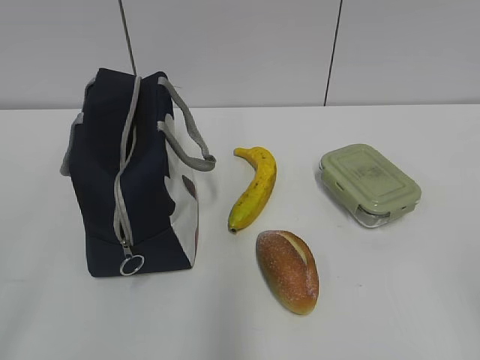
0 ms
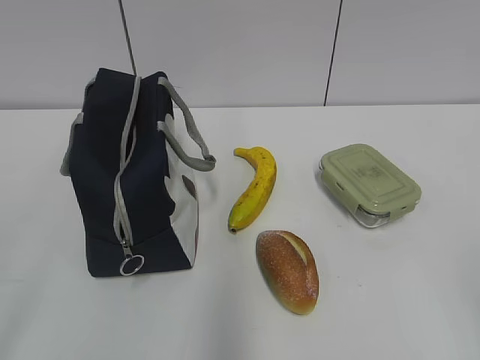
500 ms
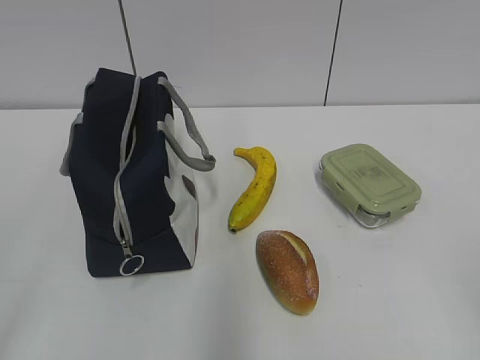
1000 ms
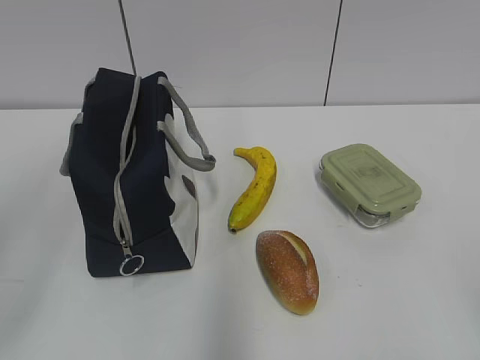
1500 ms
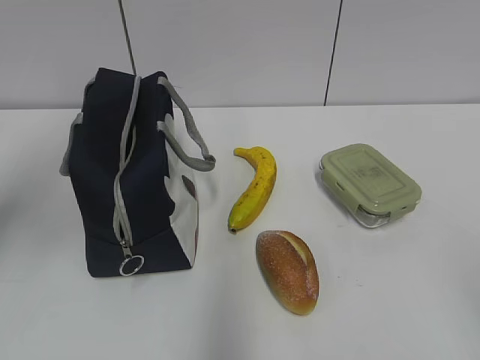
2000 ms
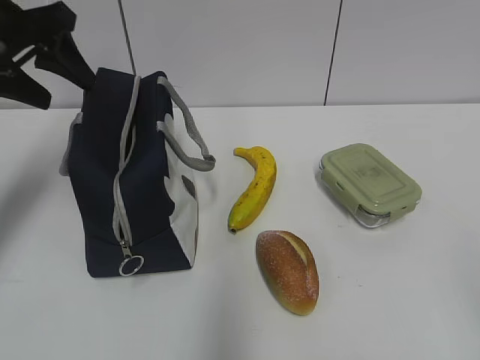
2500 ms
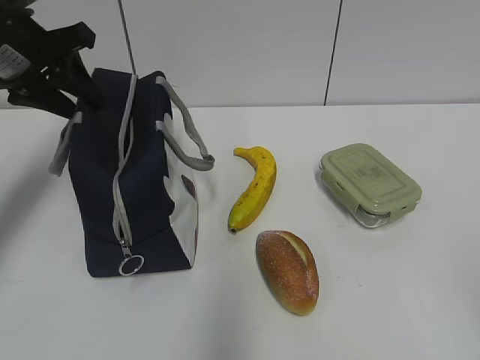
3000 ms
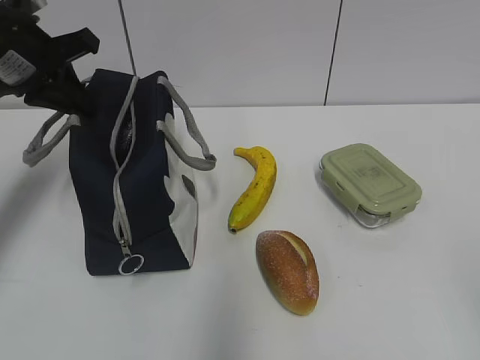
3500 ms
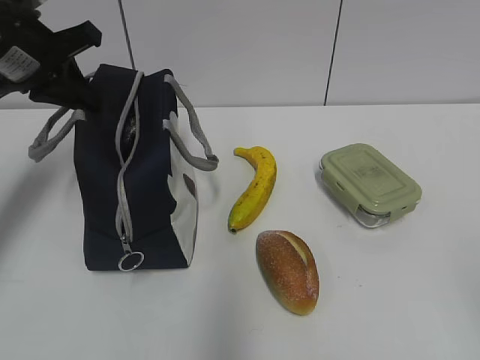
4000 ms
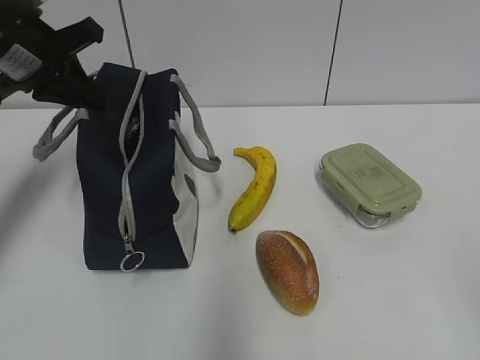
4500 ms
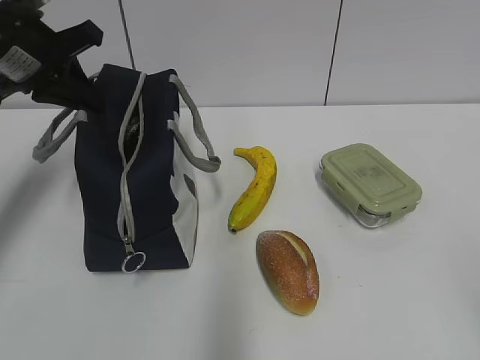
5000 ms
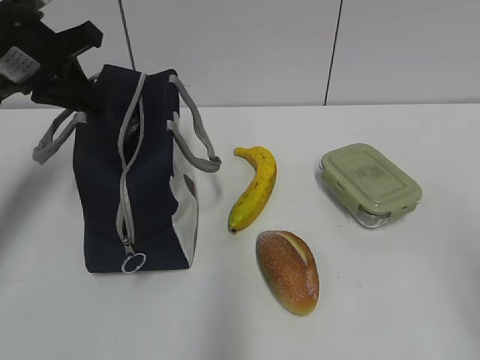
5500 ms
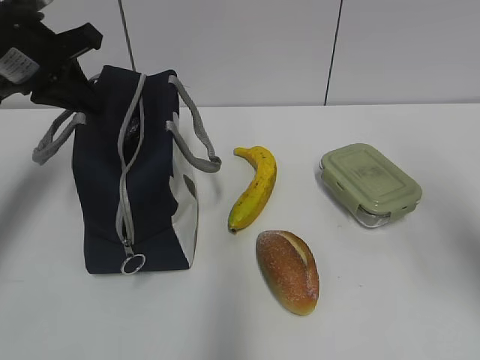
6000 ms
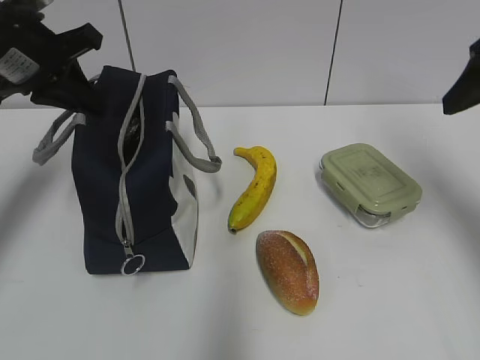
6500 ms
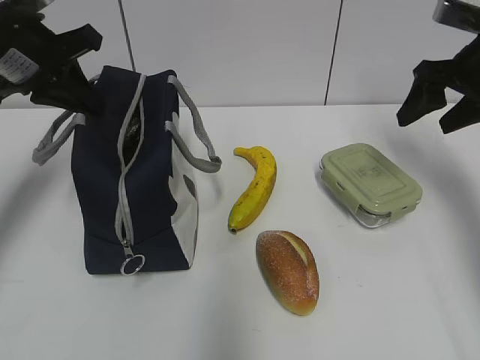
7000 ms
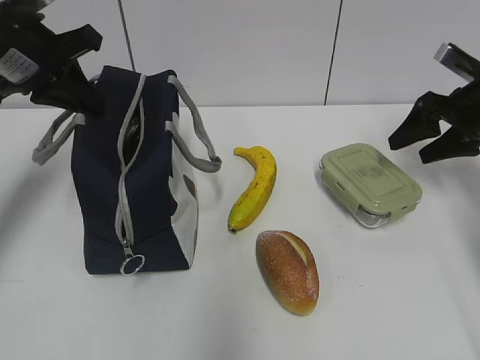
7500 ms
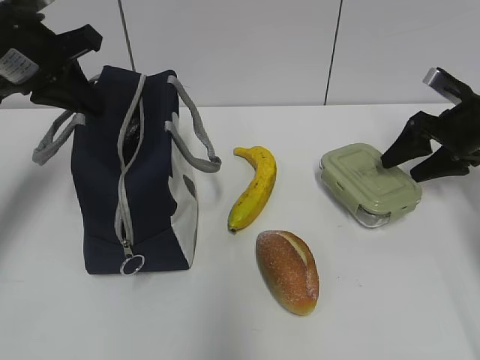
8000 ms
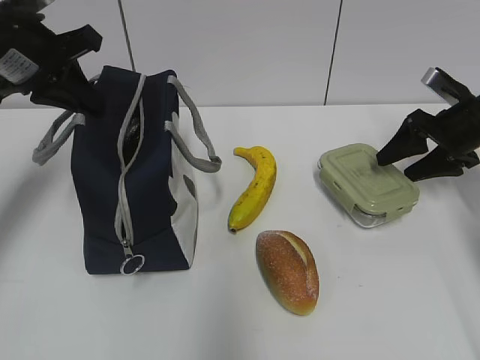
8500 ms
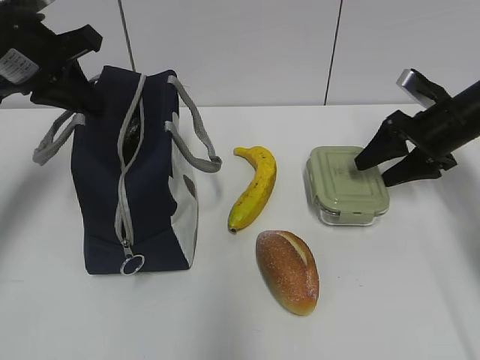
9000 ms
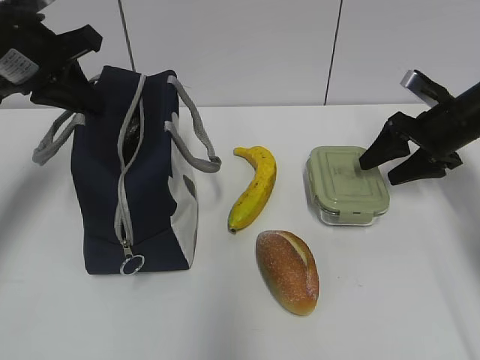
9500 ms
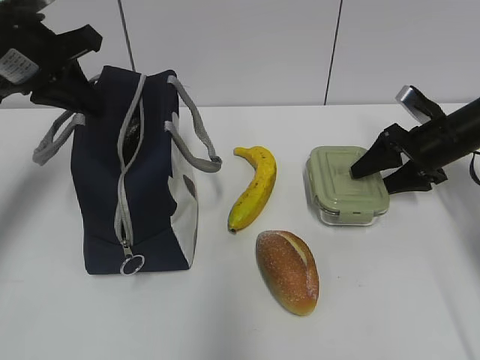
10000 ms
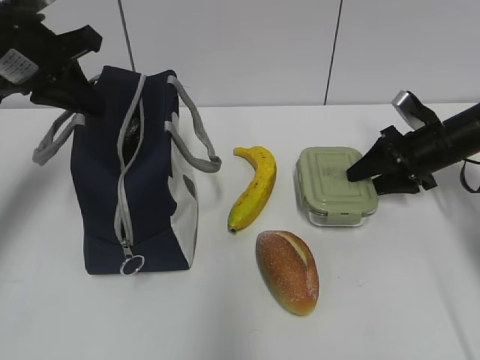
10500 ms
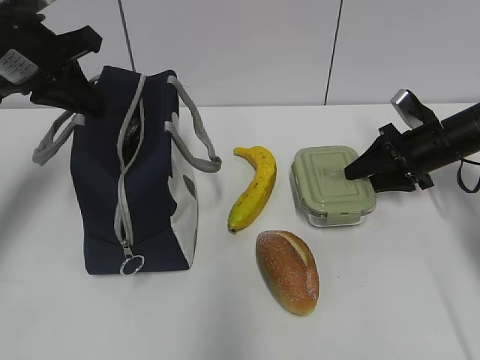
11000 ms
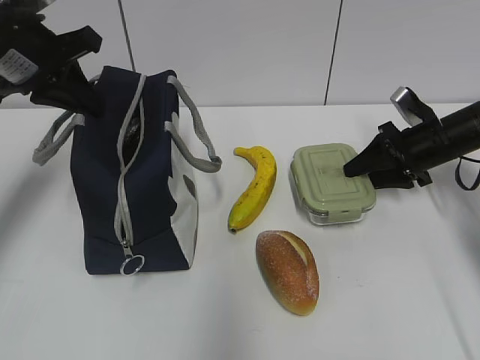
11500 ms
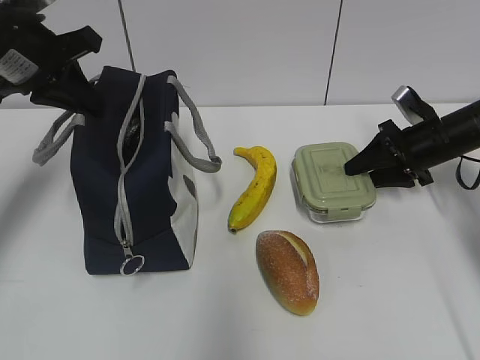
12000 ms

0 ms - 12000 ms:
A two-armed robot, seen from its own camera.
Step, 0 ms - 11500 ms: Grab the lunch box with your right hand.
2000 ms - 4000 ms: The left gripper is displaced forward and downward by about 20 cm, and closes up.
4000 ms - 6000 ms: The right gripper shifts some 20 cm forward.
6000 ms - 8000 ms: The right gripper goes roughly 25 cm forward and downward.
8000 ms - 10000 ms: There are only small adjustments of the grippers.
10000 ms - 12000 ms: The right gripper closes.

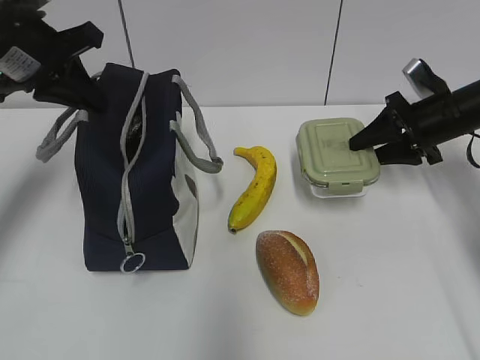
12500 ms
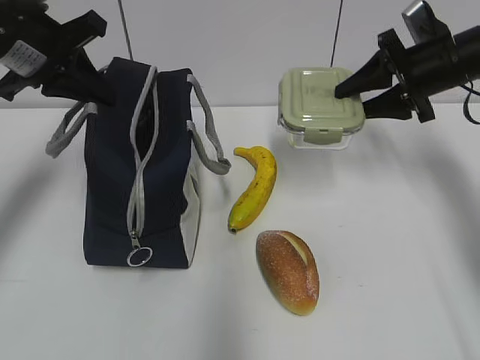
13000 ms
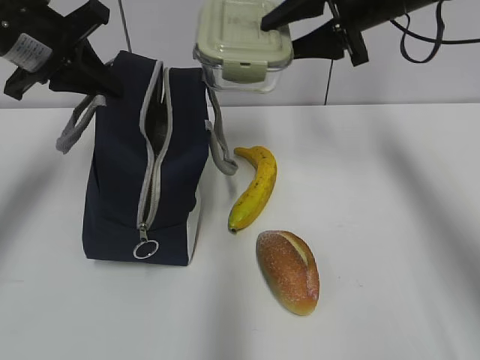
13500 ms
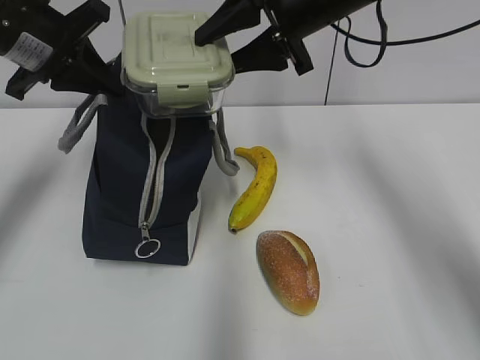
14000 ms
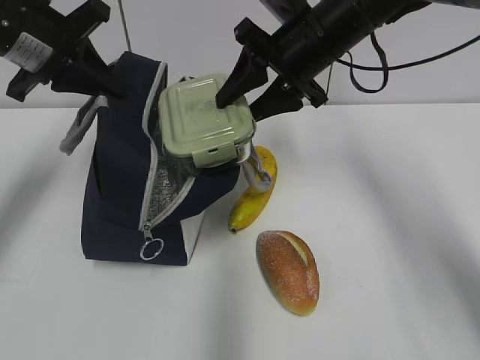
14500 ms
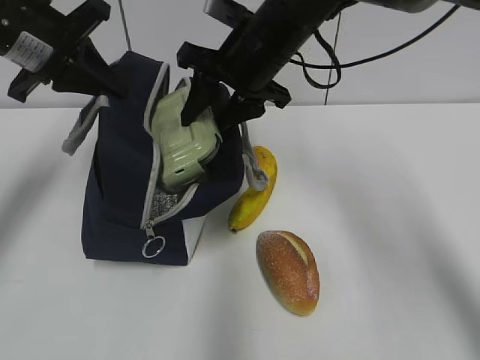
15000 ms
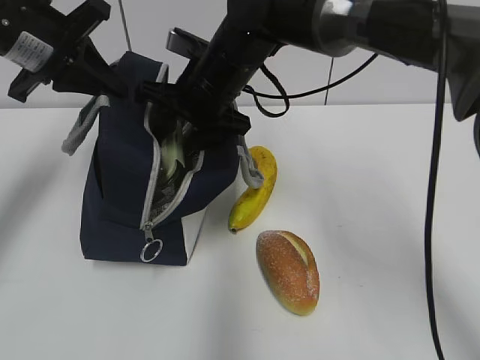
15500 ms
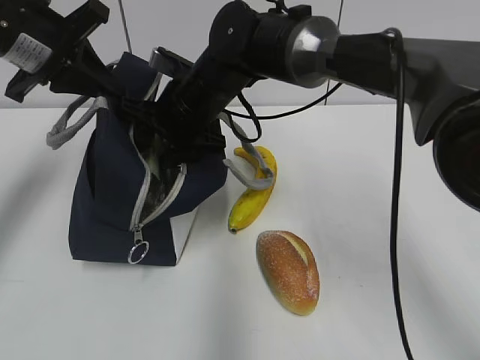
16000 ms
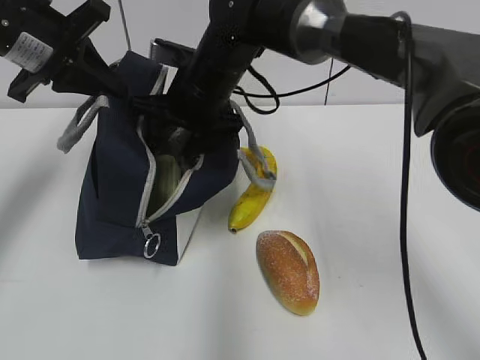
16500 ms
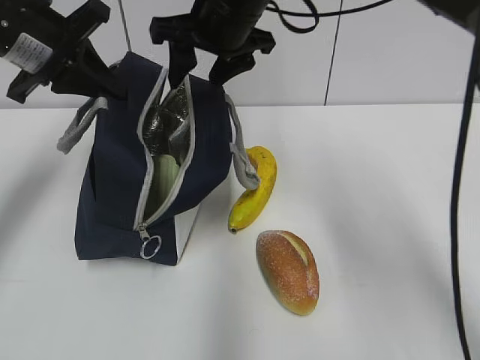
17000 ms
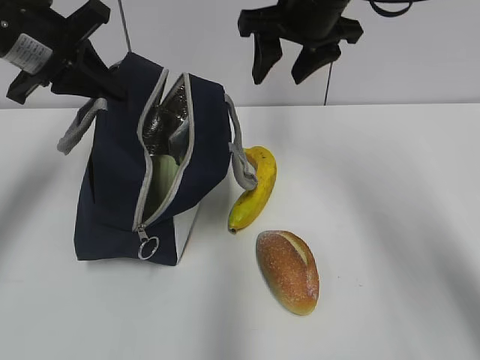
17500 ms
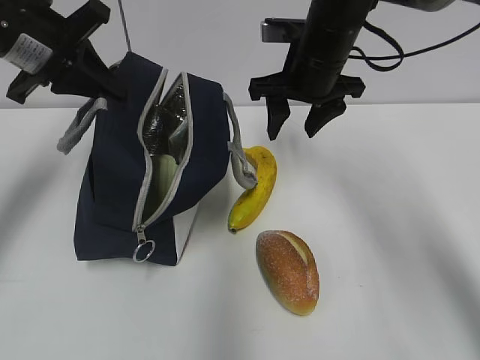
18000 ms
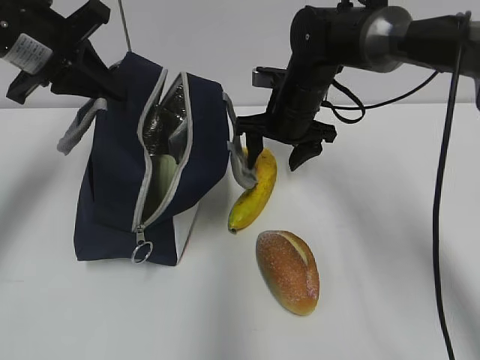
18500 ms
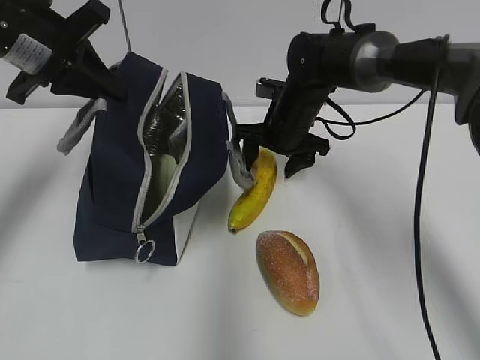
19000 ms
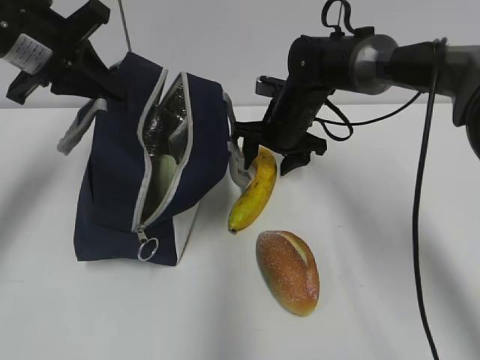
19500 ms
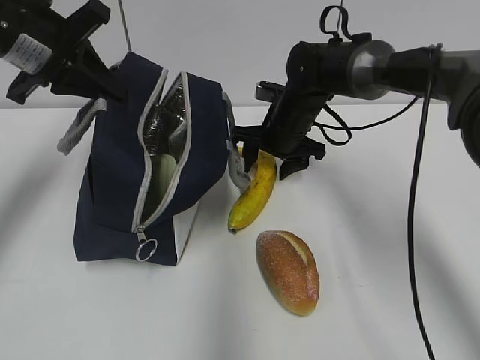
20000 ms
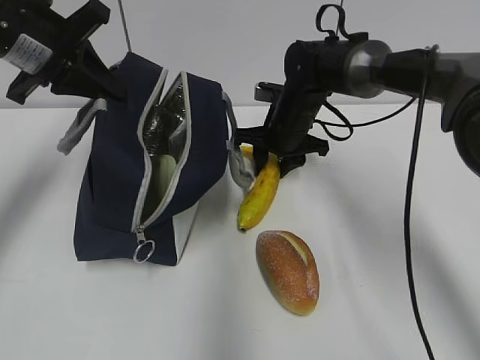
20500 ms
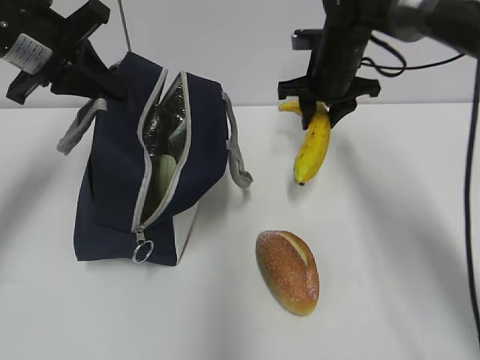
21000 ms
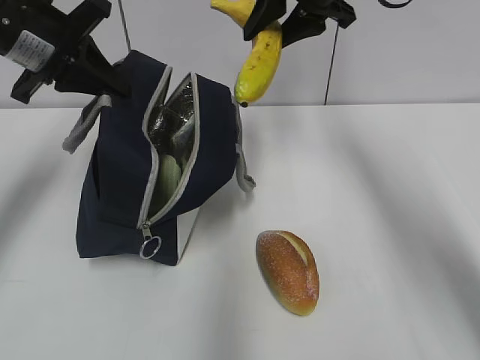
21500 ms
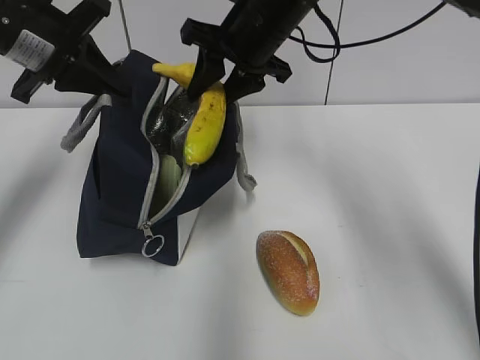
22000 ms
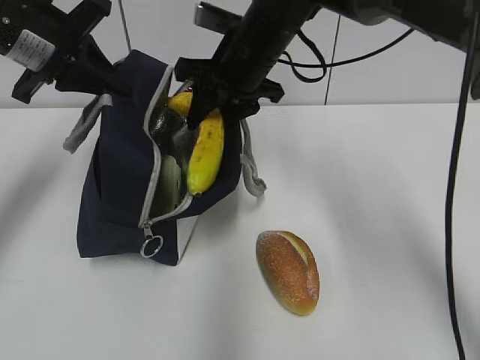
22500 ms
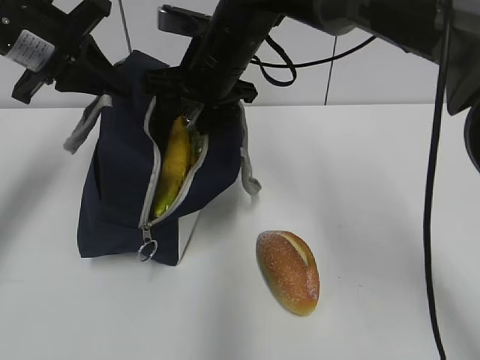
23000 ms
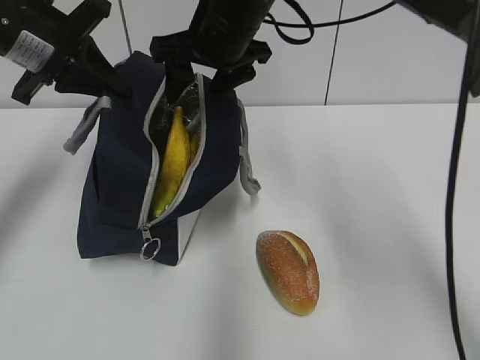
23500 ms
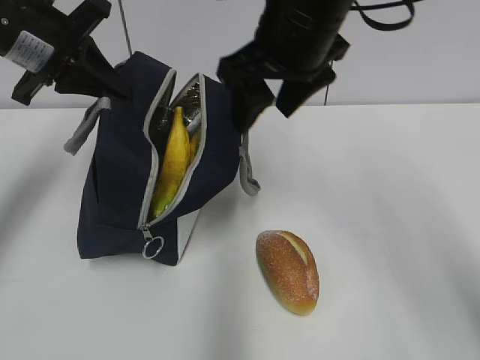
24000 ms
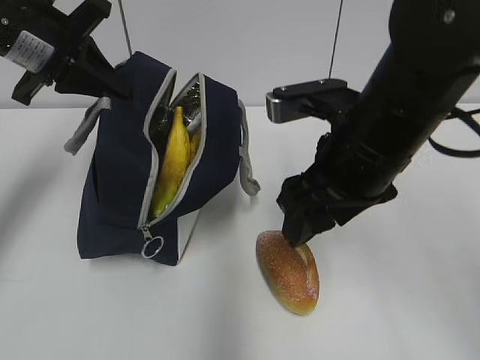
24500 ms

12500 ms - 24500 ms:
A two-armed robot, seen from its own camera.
Step, 14500 ms - 16000 ms: Place it into the bag with your right hand.
Step, 16500 ms - 20000 ms: Grab the banana with your right hand.
Step, 20500 ms - 23000 ms: Place it into the bag with your right hand.
12500 ms - 14500 ms: The right gripper heads to the left and upward, covering approximately 20 cm.
14500 ms - 16500 ms: The right gripper shifts roughly 15 cm to the left and downward.
16500 ms - 18500 ms: The right gripper heads to the right and downward, covering roughly 10 cm.
18500 ms - 20500 ms: The right gripper closes its fingers.
20500 ms - 22500 ms: The right gripper travels upward and to the left by approximately 15 cm.
22500 ms - 24500 ms: The right gripper goes about 20 cm backward and to the right, and opens up.

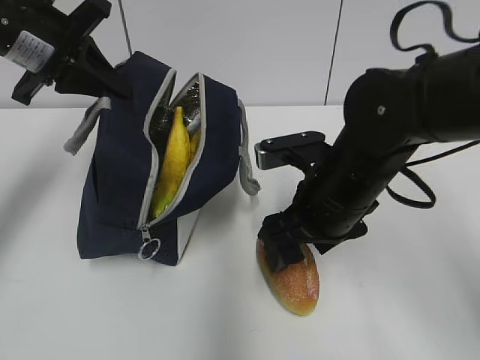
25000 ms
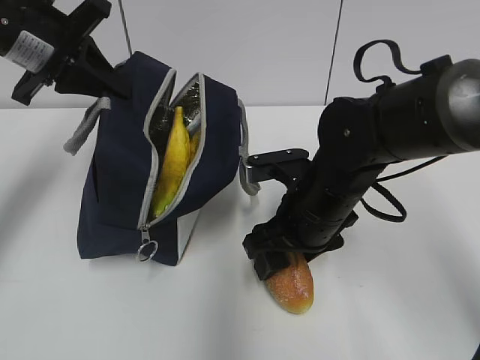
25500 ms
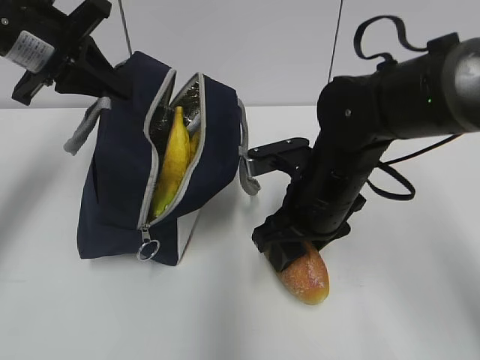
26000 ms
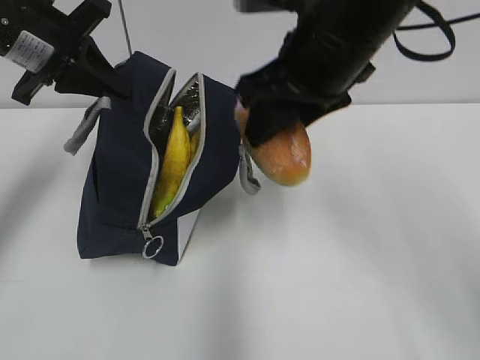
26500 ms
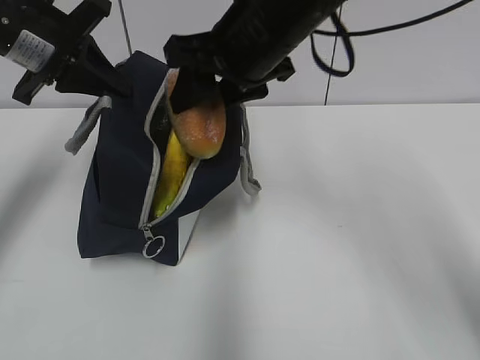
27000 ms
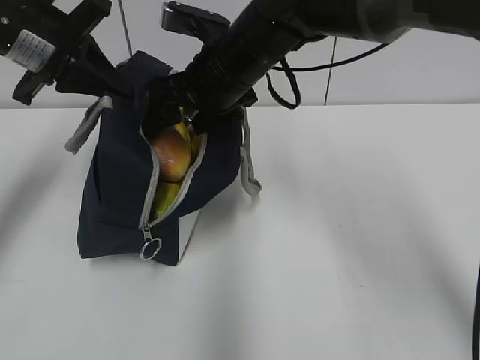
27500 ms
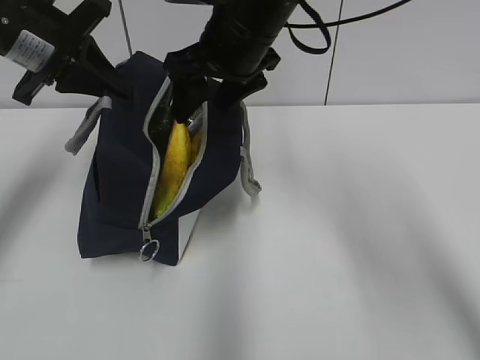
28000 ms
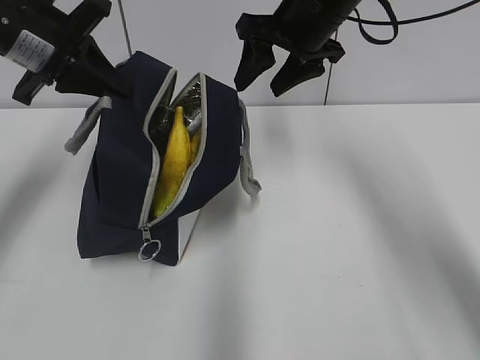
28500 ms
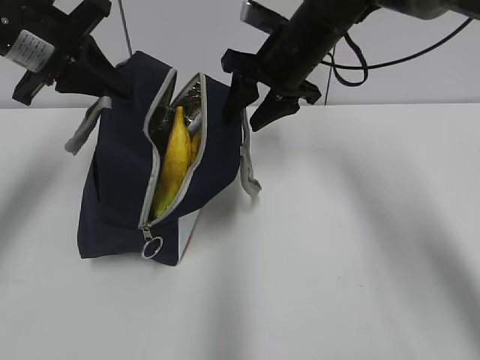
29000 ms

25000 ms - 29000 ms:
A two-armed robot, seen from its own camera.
25000 ms - 27000 ms: The right gripper shifts roughly 15 cm upward, forward and to the left.
27000 ms - 29000 ms: The right gripper shifts roughly 10 cm forward and to the right.
